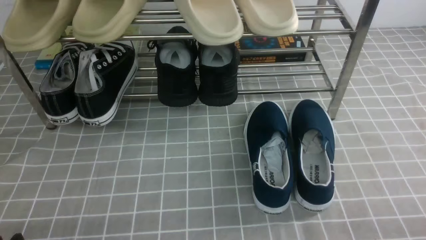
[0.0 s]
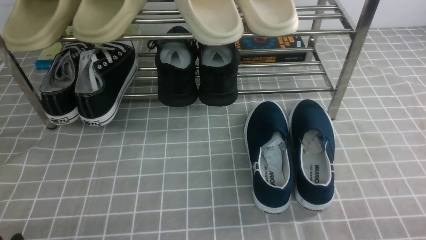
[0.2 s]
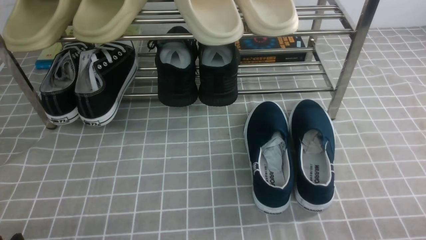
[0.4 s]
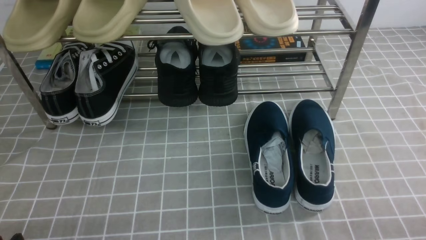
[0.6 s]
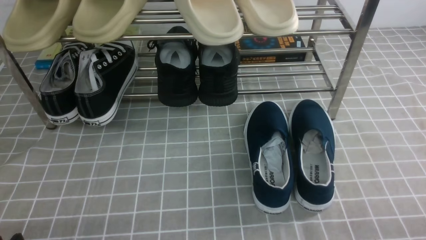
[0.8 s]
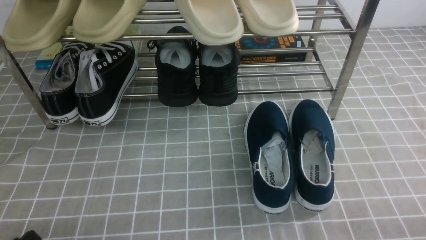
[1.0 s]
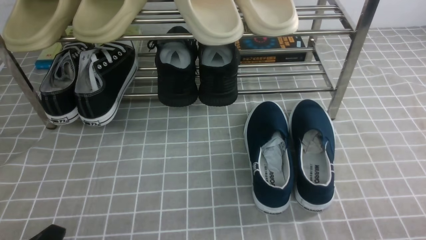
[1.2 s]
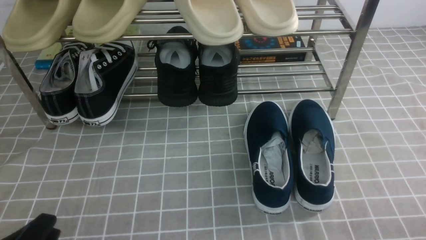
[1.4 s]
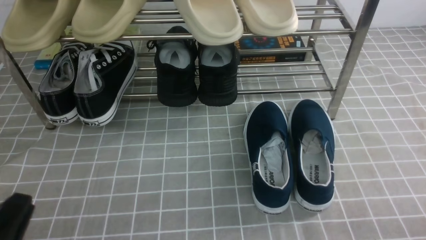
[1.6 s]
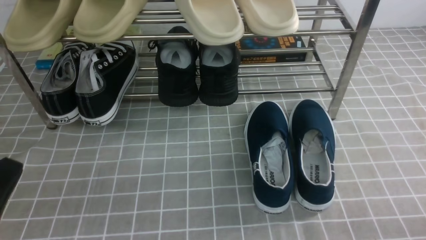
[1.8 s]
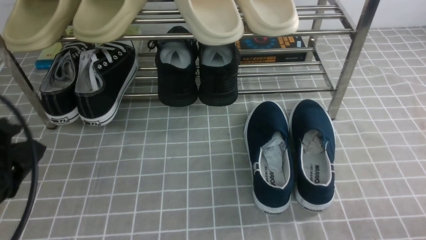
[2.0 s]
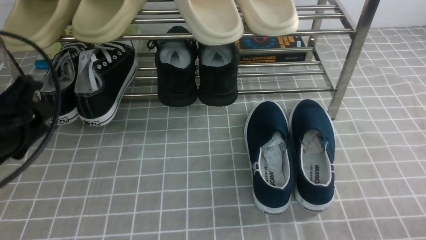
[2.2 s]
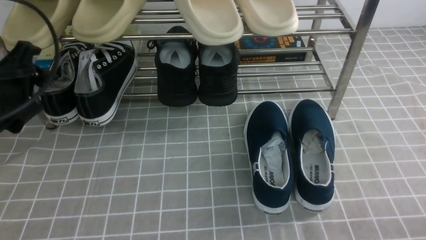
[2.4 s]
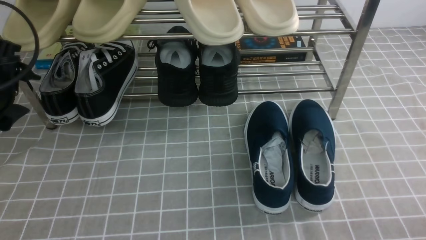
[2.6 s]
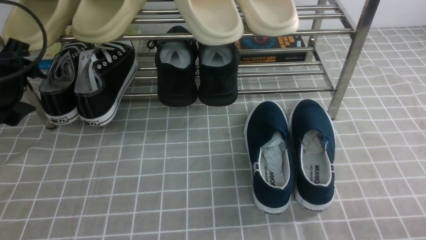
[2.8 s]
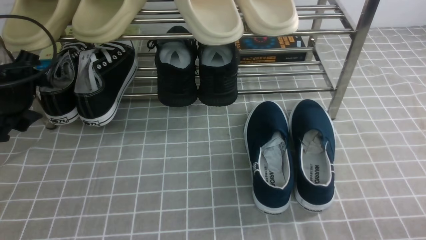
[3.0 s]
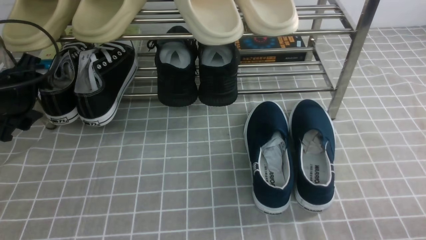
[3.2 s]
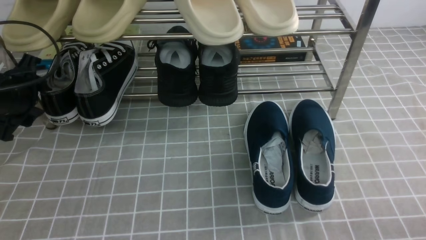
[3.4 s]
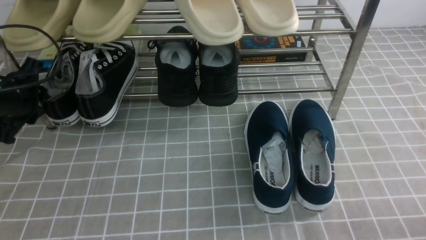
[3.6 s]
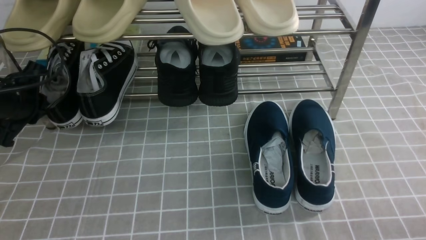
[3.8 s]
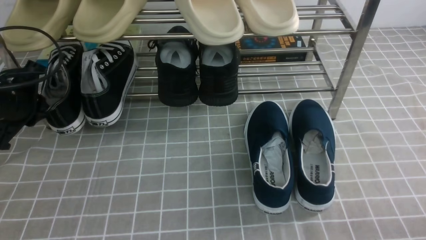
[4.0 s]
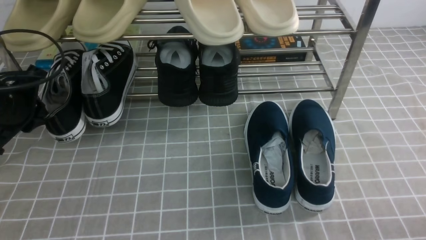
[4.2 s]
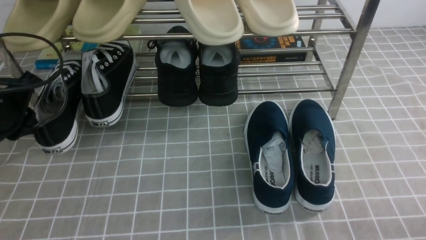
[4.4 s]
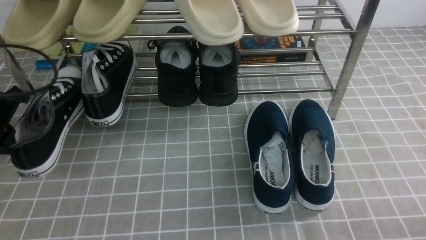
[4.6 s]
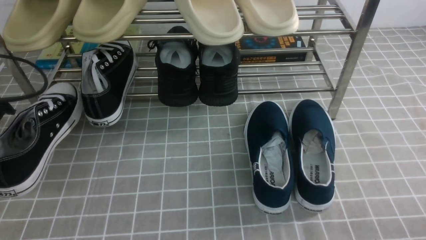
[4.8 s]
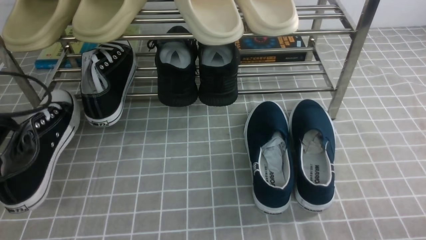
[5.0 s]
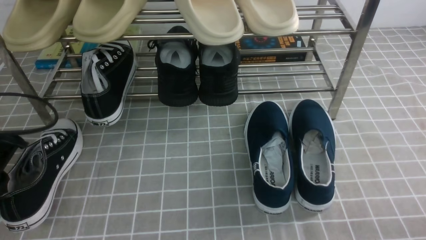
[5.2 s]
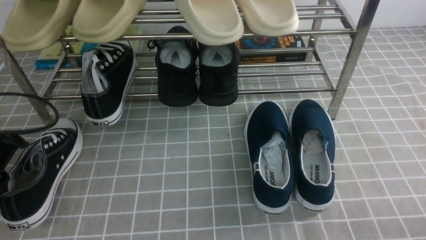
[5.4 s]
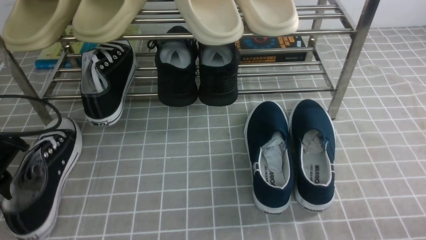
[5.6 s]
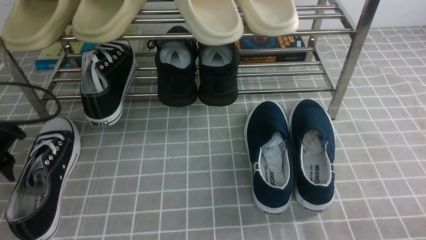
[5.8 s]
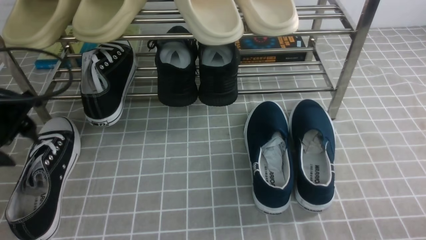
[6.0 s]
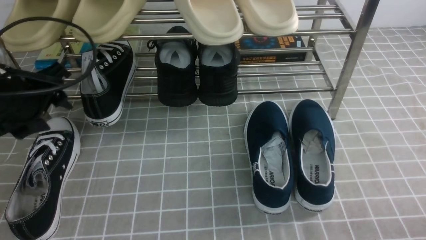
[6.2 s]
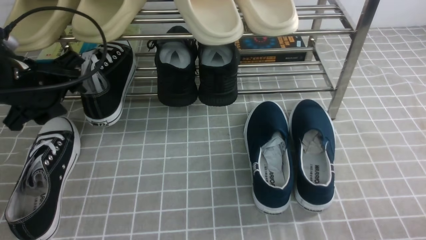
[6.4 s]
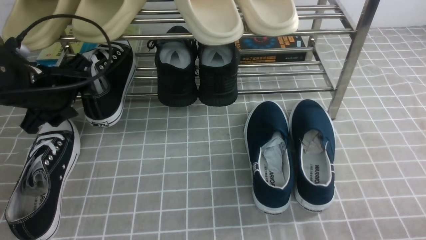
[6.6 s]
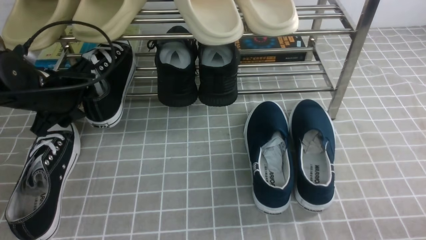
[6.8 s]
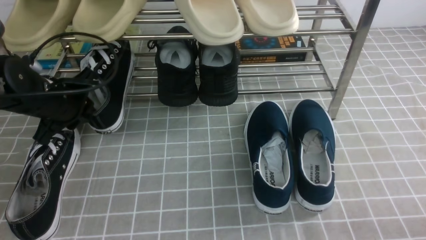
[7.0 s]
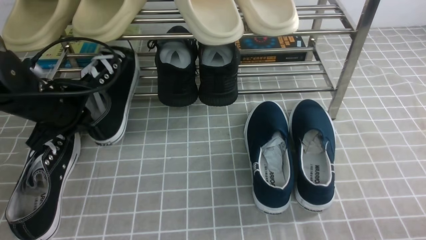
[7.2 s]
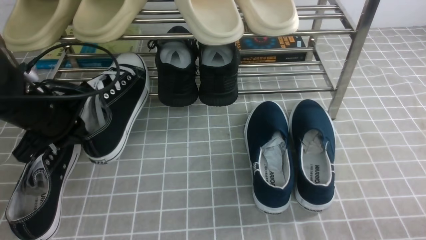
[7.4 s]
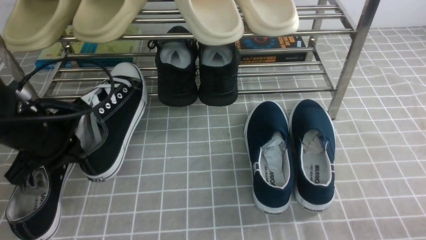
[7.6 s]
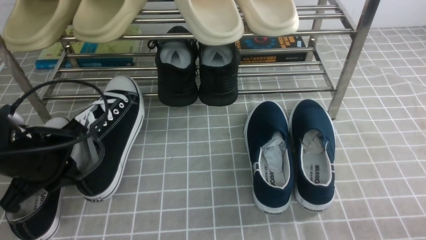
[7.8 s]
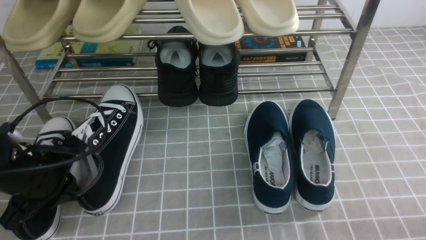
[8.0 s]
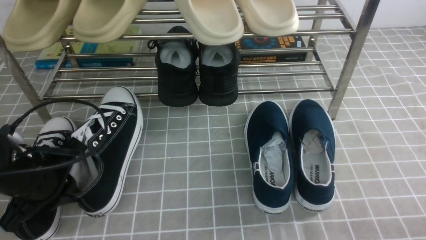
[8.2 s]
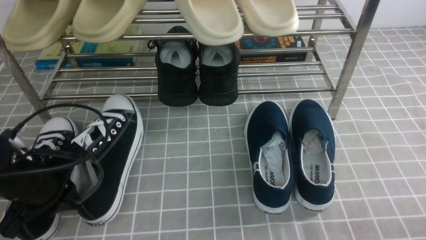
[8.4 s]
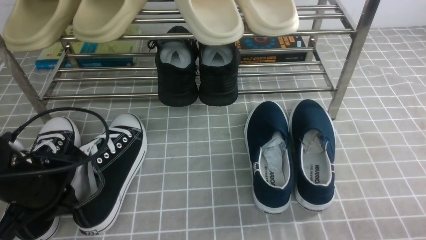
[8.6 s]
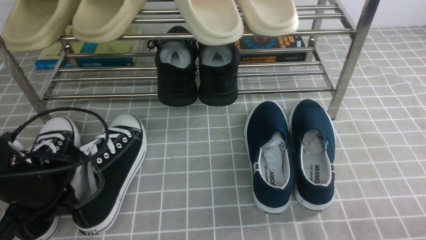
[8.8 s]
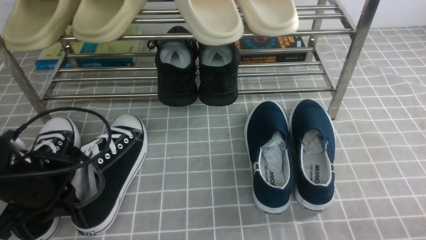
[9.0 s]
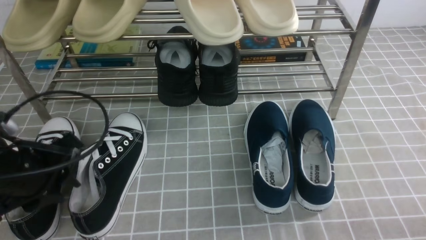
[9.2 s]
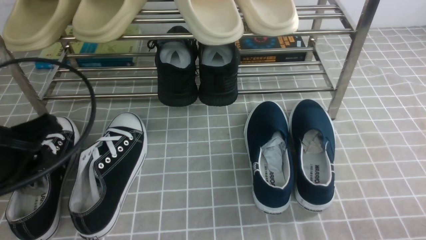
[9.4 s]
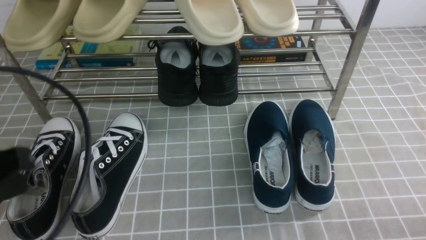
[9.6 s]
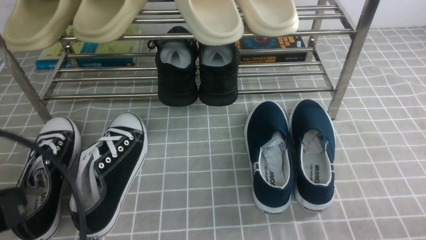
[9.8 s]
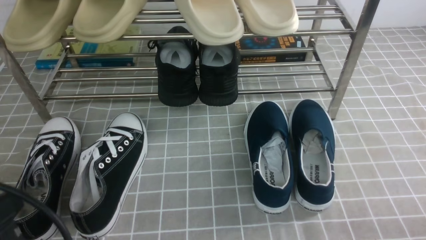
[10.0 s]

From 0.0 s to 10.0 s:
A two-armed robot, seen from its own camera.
Step, from 0.0 s to 3.8 s: use the left arm to clamp a shoe on the left side of the shoe rack.
Step, from 4.0 s to 5.4 s: Use your left arm to remove the clamped shoe from the shoe rack and put it down.
Step, from 5.8 s to 7.2 s: use the left arm to clamp a shoe on the left side of the shoe rack.
Step, from 7.4 s to 9.6 s: Use your left arm to remove the clamped shoe from the shoe rack and put it down.
From 1.4 s to 2.8 s: The left gripper heads forward and upward, covering roughly 25 cm, and opens its fingers.
From 2.8 s to 4.2 s: The left gripper closes.
From 4.2 s to 5.8 s: The left gripper travels backward by some 10 cm, and opens up.
From 5.8 s to 7.2 s: The left gripper shifts roughly 10 cm forward and to the right, and closes up.
From 7.2 s to 8.6 s: The left gripper travels backward by approximately 10 cm.
From 8.6 s to 10.0 s: The left gripper travels backward and upward by roughly 15 cm, and opens, then closes again.

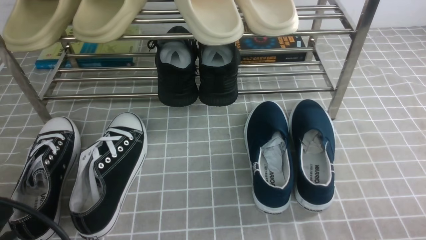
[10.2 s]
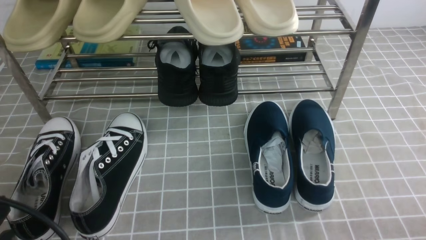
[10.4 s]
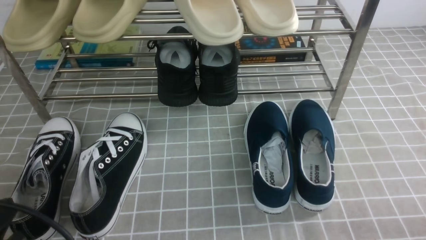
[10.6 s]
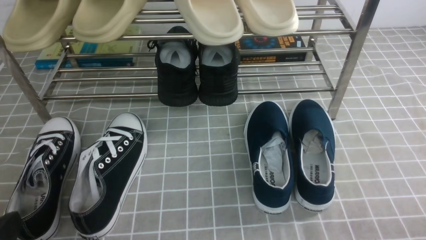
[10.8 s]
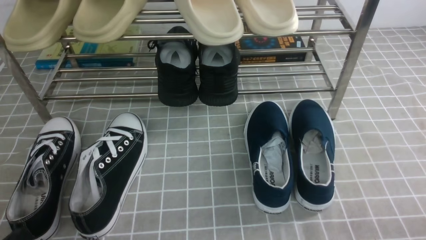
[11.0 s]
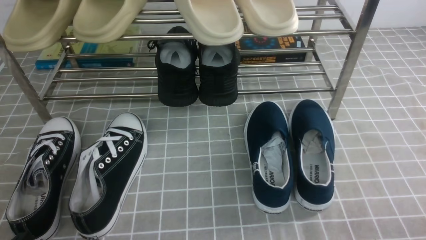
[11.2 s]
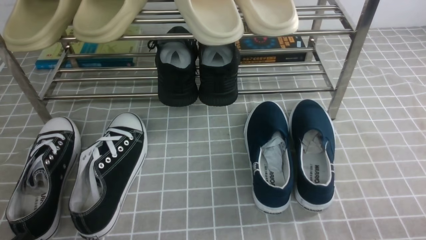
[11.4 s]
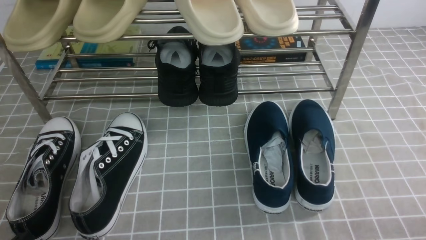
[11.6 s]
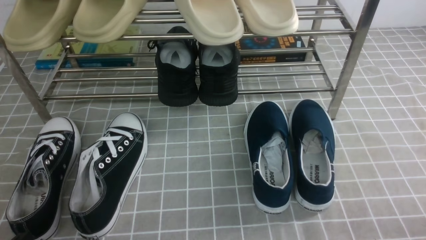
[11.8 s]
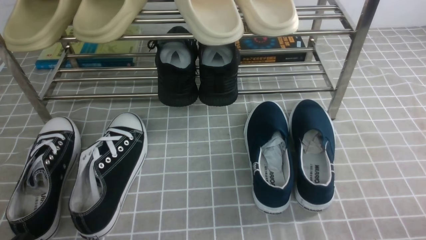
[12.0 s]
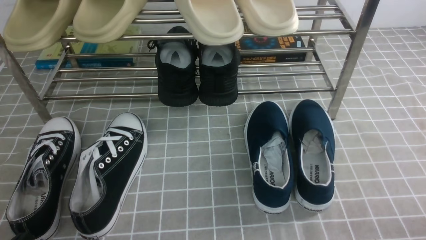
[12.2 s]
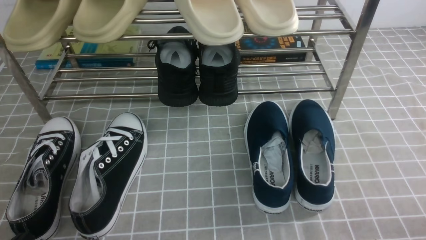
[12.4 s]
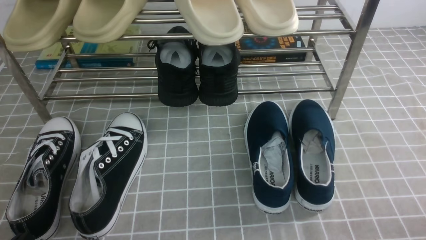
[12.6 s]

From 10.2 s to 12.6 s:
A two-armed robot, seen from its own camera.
From 10.2 s to 11.4 s: The left gripper is displaced downward by about 10 cm.
From 11.4 s to 12.6 s: Neither gripper changes place.

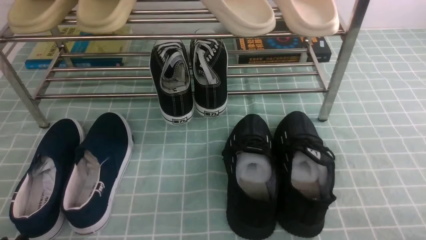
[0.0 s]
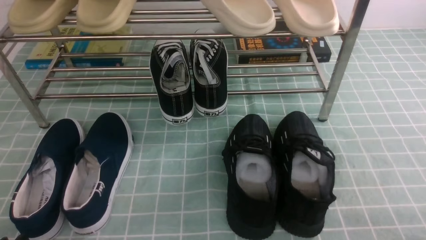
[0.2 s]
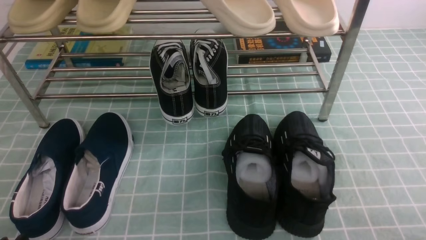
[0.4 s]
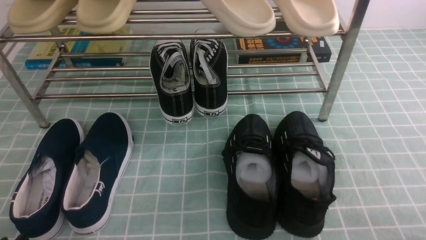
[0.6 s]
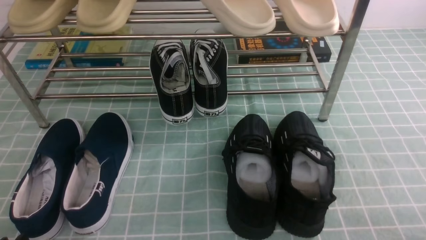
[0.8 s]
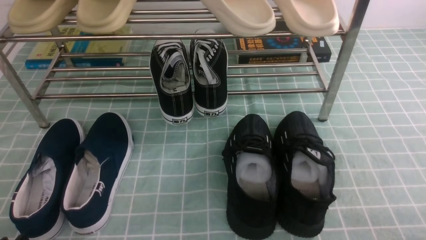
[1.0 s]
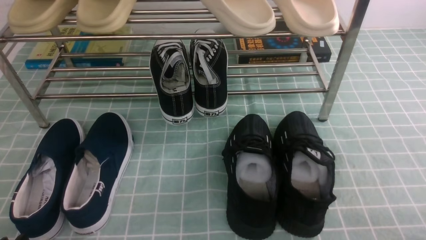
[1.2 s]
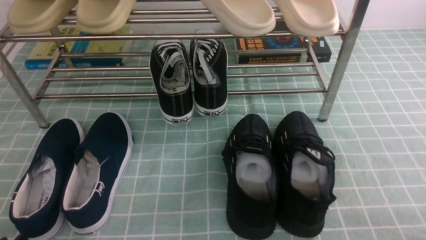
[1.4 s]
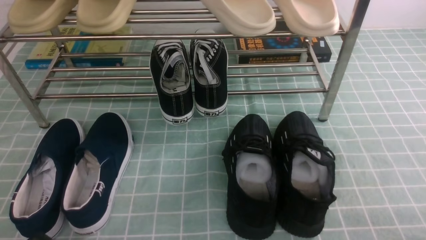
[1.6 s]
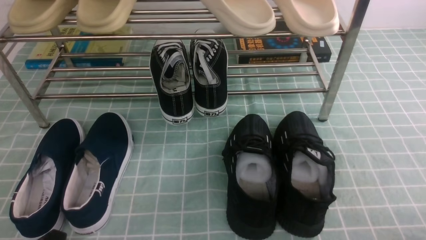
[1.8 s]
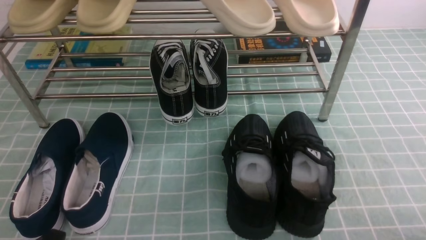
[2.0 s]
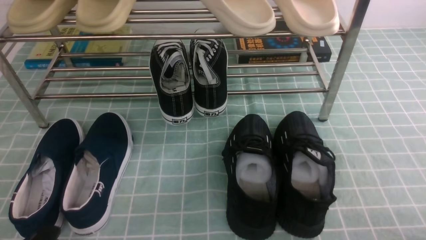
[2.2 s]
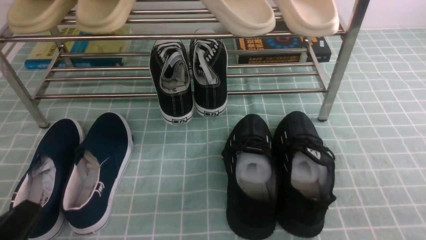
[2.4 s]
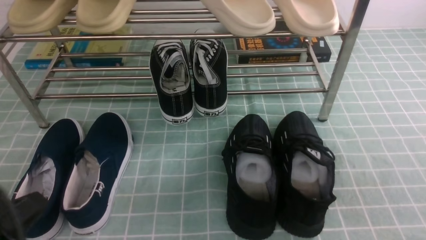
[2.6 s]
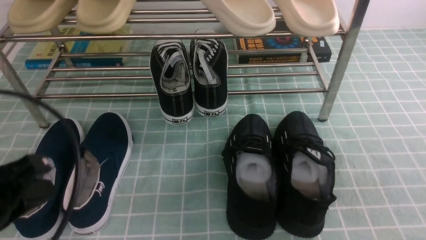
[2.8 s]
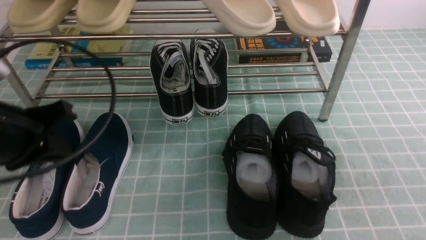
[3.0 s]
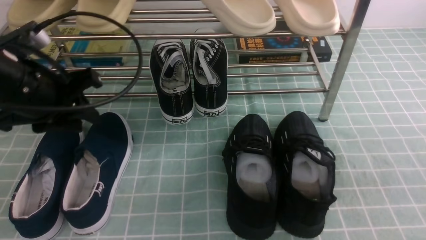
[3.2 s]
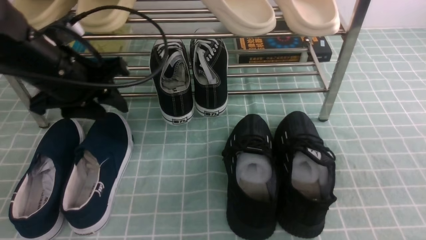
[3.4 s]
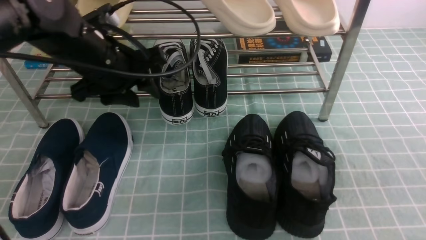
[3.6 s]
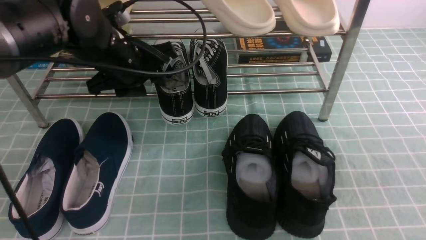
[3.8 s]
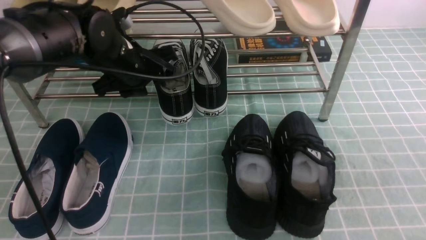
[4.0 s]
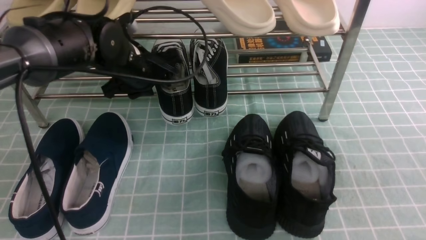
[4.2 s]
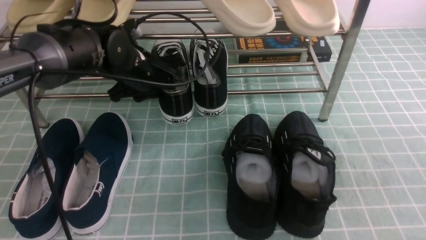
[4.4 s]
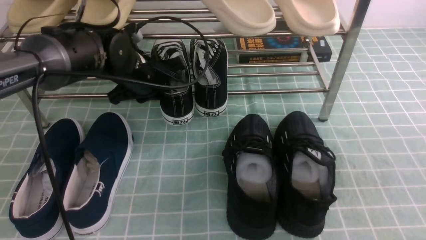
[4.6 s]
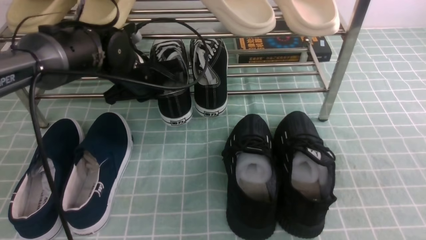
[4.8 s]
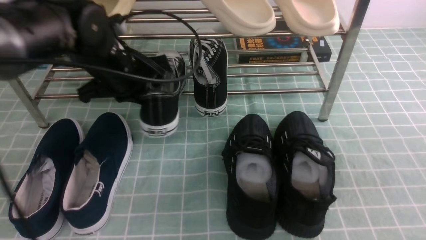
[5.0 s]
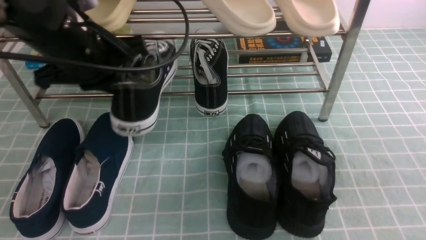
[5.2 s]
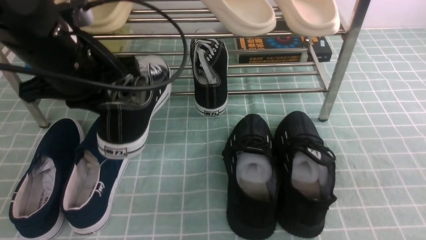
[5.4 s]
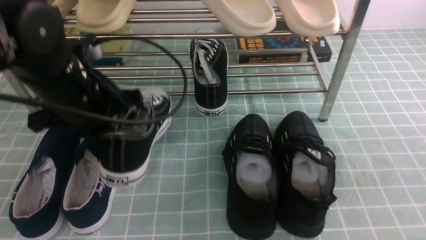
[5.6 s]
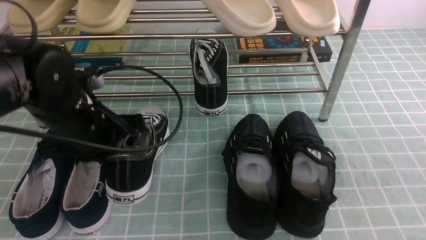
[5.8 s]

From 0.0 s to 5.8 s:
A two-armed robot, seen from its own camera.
Step, from 0.0 s to 4.6 s: use the left arm to clamp a shoe in the middle of the shoe rack.
From 1.4 s to 2.8 s: The left gripper heads upward and forward, covering approximately 15 cm, and closes up.
From 2.8 s to 4.4 s: The left gripper heads forward and to the right, covering about 30 cm, and opens.
From 4.4 s to 5.8 s: The left gripper goes some 10 cm backward, and closes up.
